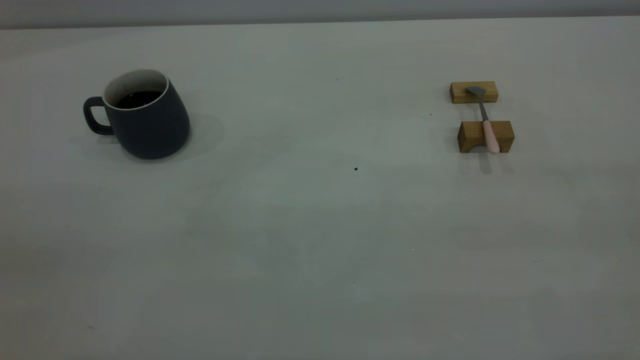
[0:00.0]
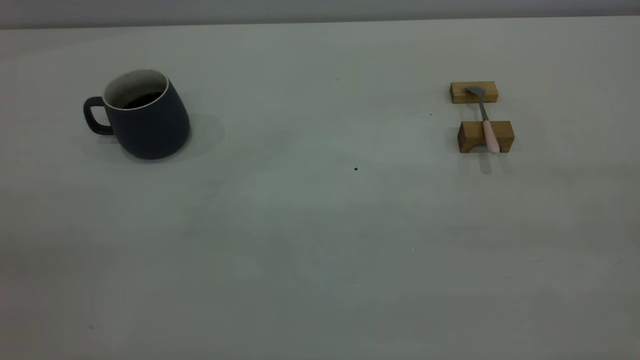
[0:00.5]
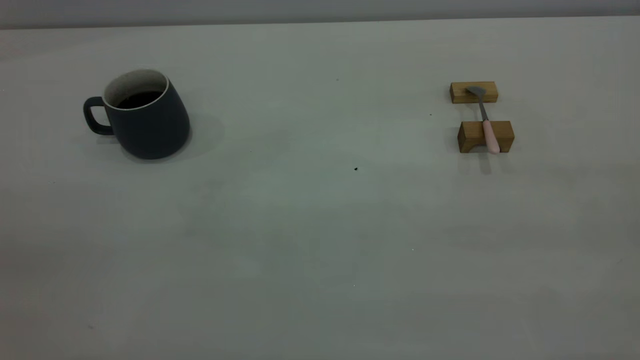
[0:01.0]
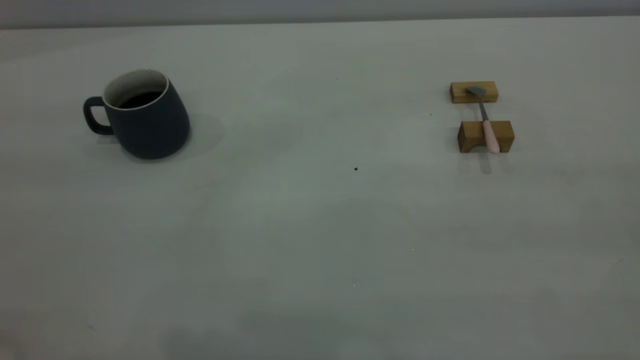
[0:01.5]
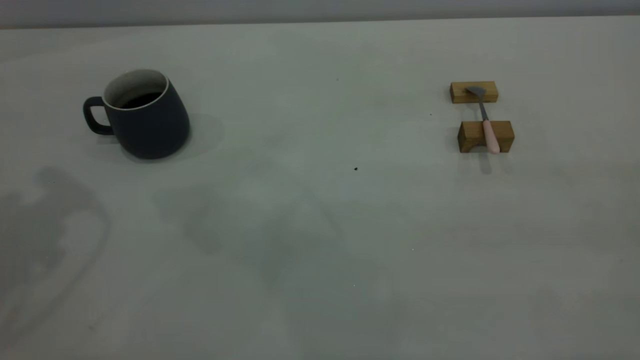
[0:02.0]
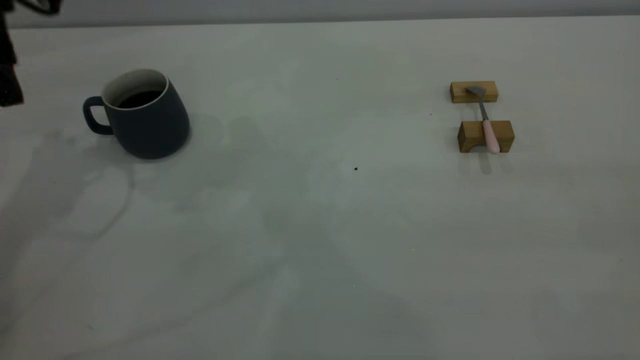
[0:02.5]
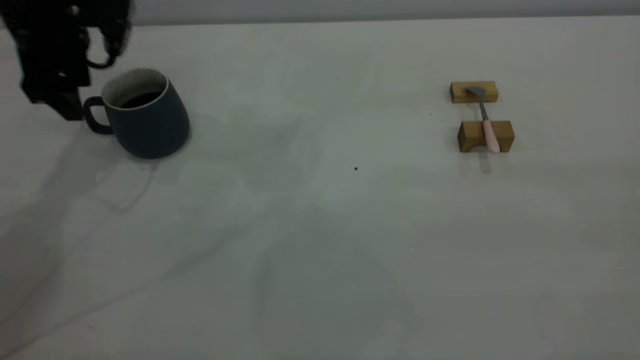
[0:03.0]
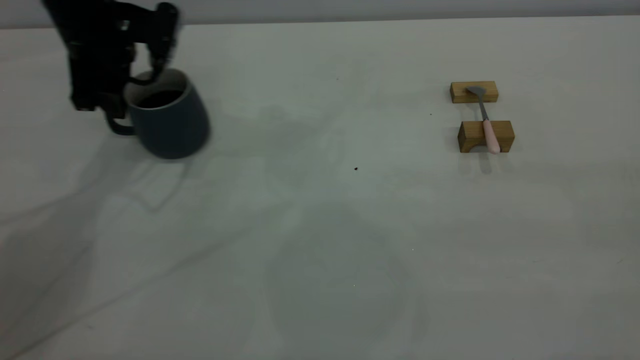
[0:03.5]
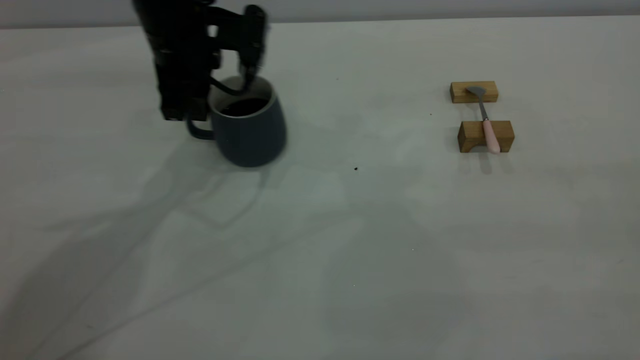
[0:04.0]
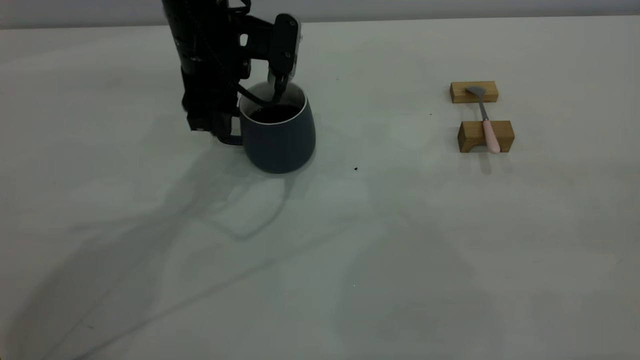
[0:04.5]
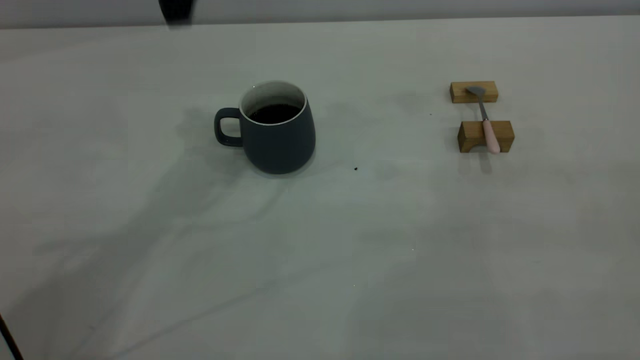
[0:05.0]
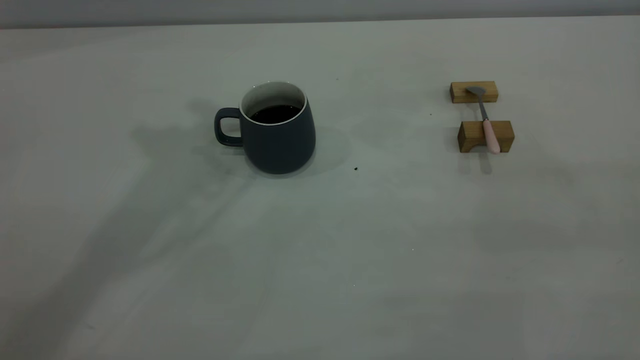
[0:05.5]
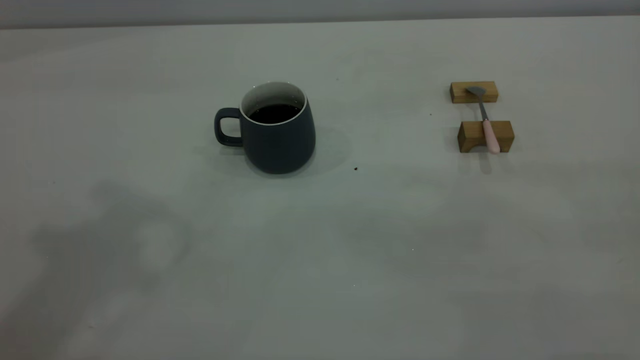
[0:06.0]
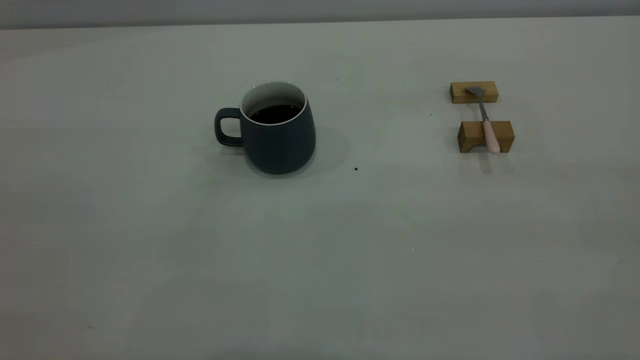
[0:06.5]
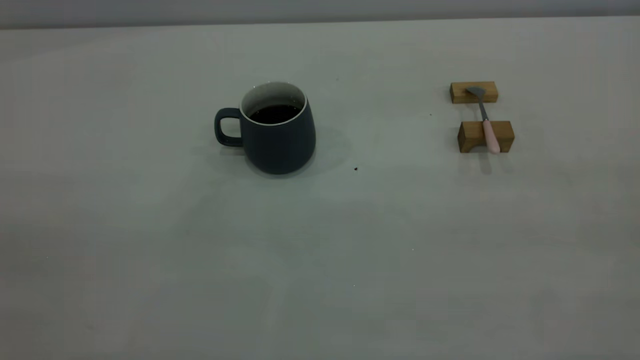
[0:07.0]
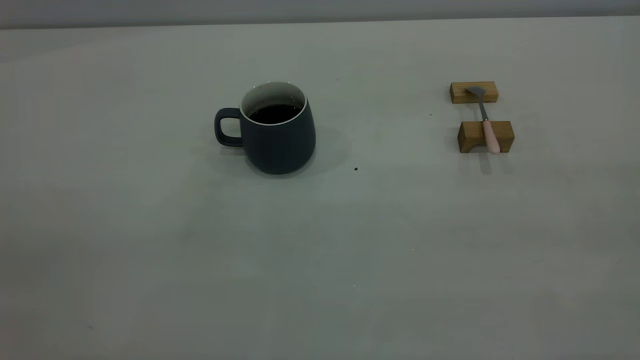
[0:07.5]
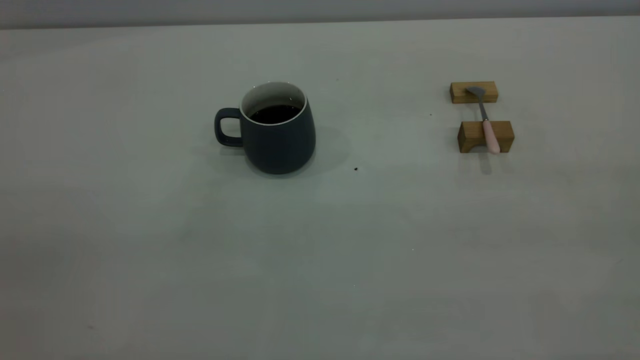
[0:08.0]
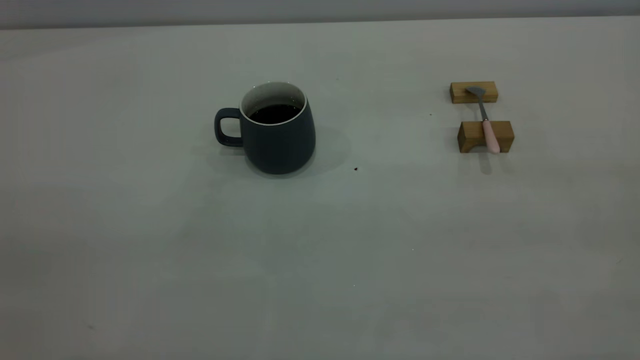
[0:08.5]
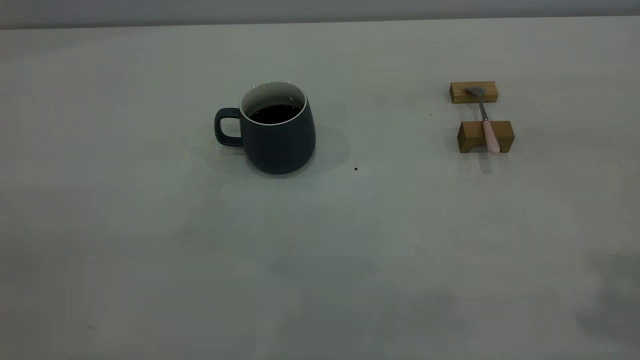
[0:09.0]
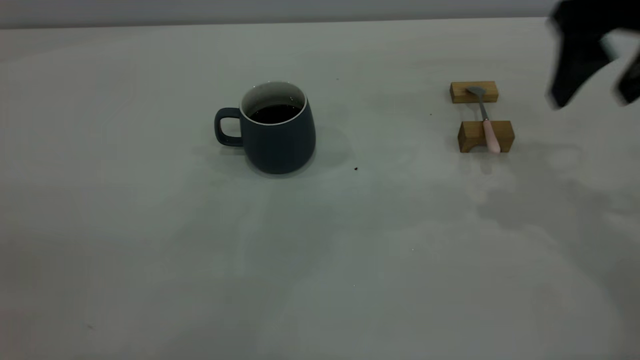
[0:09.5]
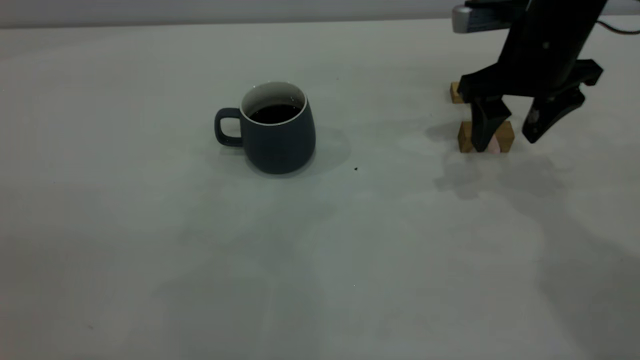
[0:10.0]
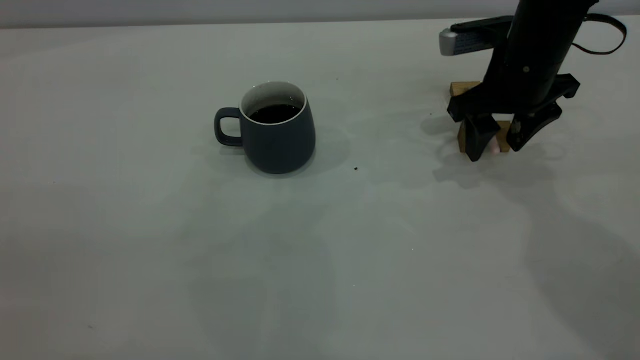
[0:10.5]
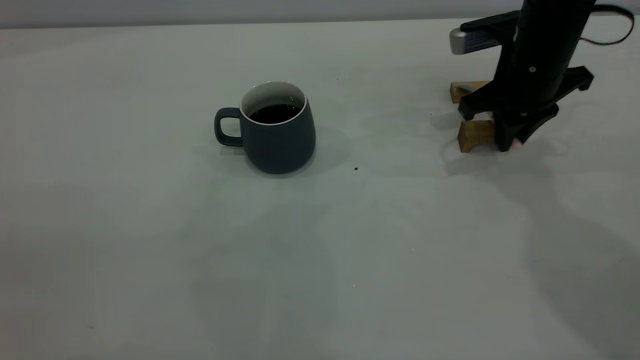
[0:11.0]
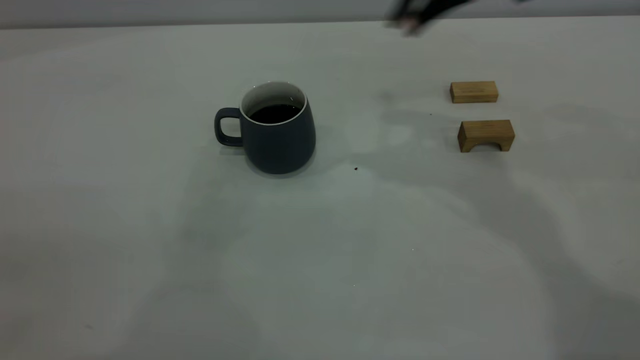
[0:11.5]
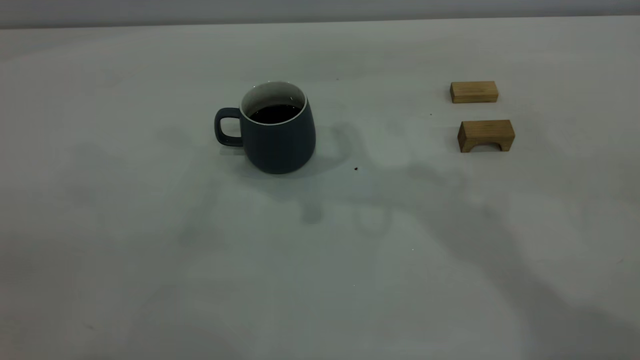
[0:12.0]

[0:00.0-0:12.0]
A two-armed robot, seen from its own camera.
Step, 0.0 to 4.5 s: Move the cup with coffee to the center of view.
Step, 5.0 to 11.0 s: Pick up the spoon.
2.0 to 4.0 s: The left gripper goes about 30 cm downward, to the right and forward, and closes.
4.0 to 6.0 s: The left gripper travels upward and backward by some 35 cm, and opens, then closes once more.
8.0 to 10.0 s: The right gripper goes approximately 40 cm forward and downward, and opens its fingers.
10.0 to 12.0 s: The right gripper heads to the left and upward, covering roughly 25 cm, and closes up.

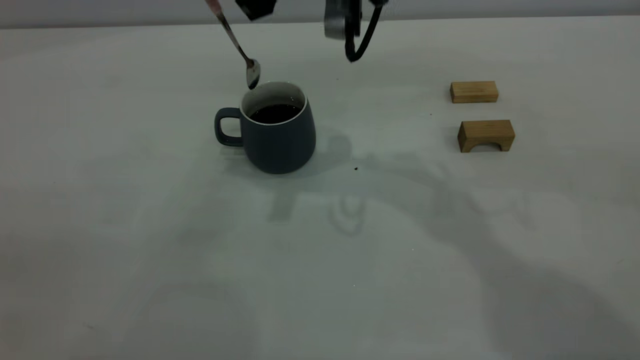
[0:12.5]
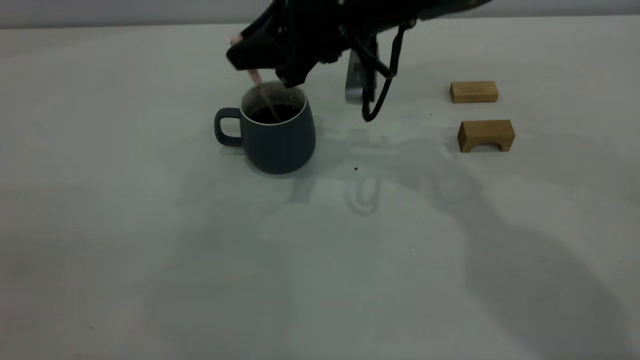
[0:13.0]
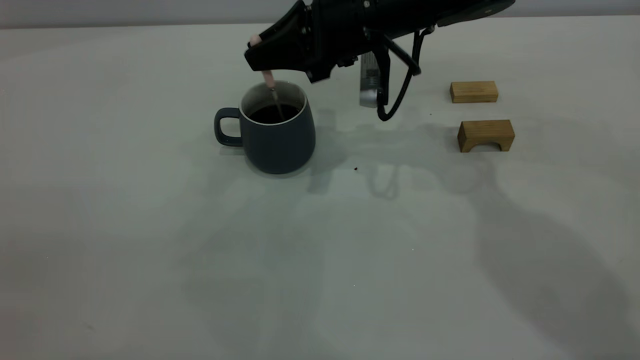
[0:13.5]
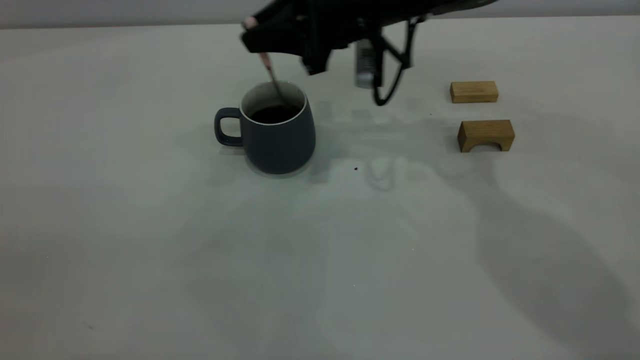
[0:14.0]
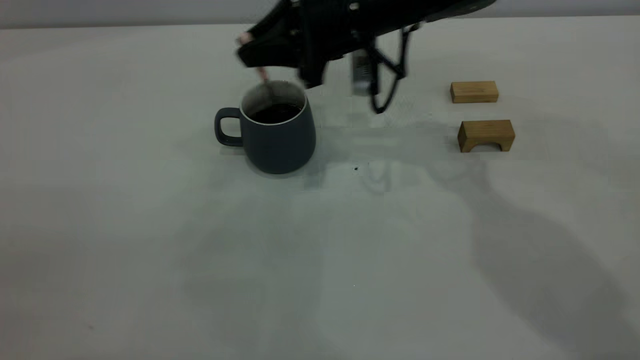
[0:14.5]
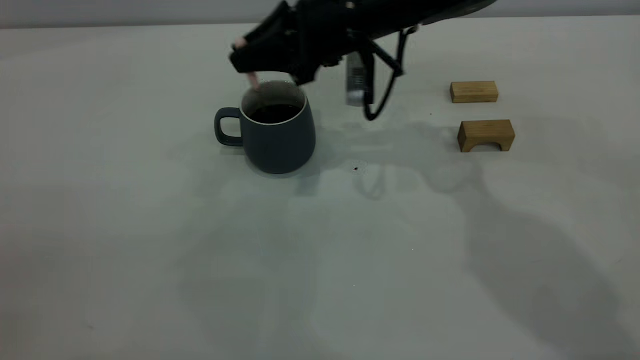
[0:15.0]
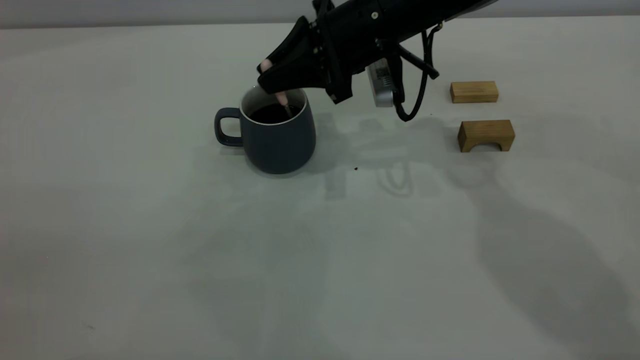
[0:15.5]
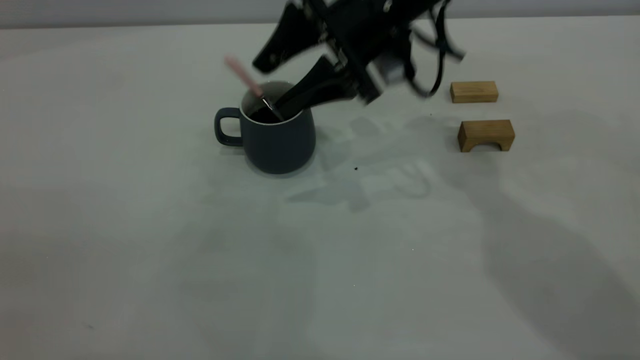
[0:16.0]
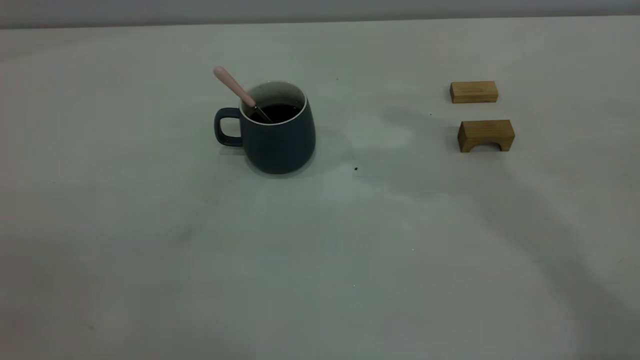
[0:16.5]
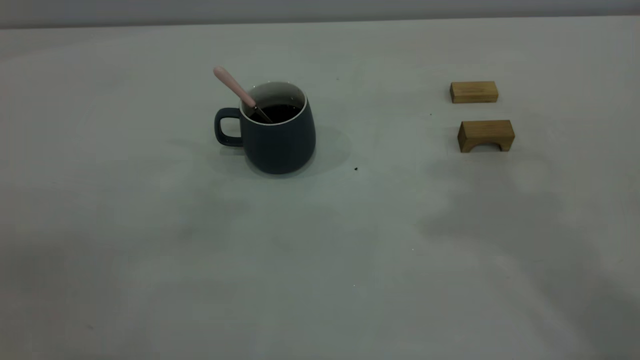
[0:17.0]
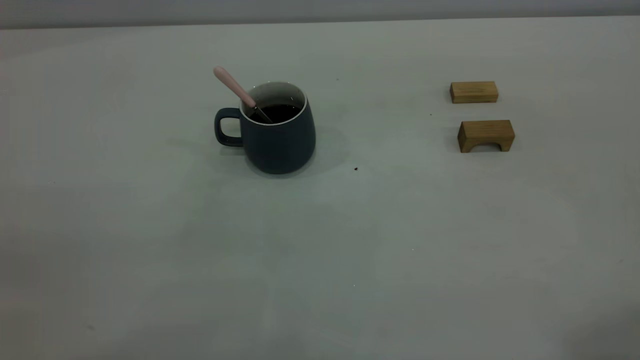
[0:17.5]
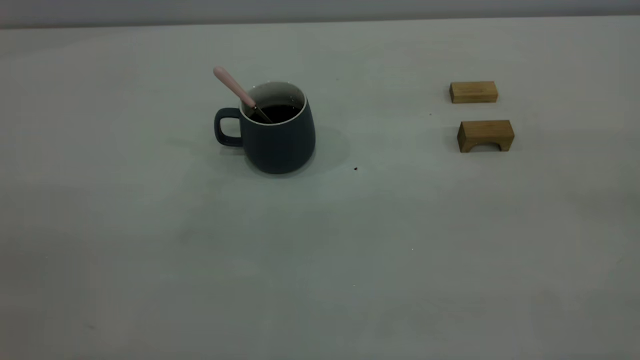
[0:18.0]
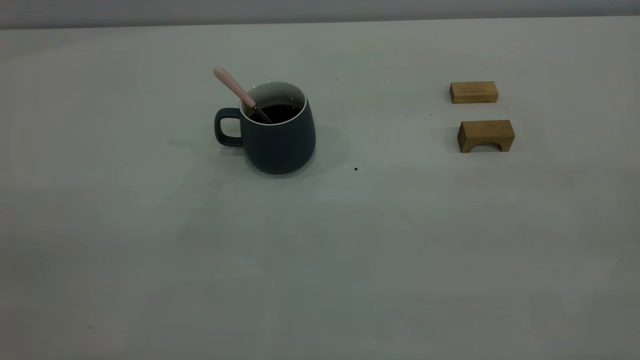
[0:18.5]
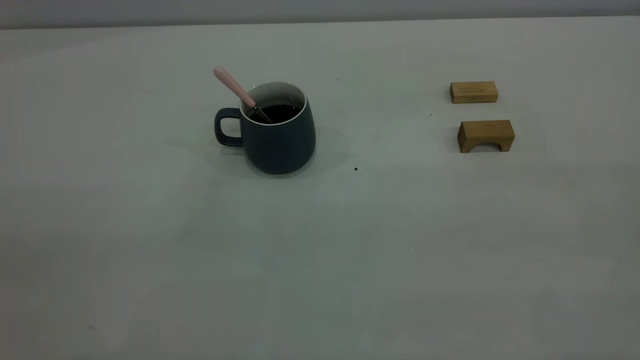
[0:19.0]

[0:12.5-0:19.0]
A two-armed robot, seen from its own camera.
Step, 12.5 to 16.0 s: Stir the coffee in the cup.
12.5 to 14.5 s: The right gripper goes approximately 10 cm downward and forward.
14.5 to 17.0 s: The right gripper heads upward, backward and to the right, covering about 40 cm, and opens, then closes once more.

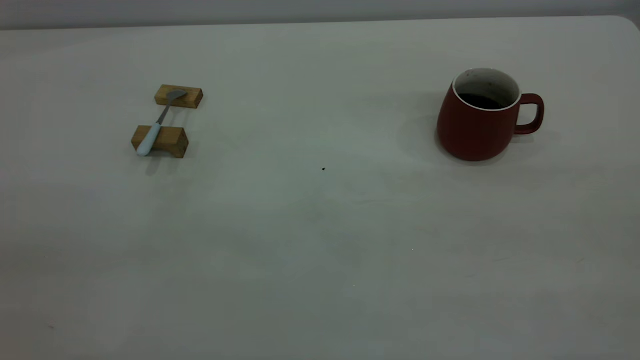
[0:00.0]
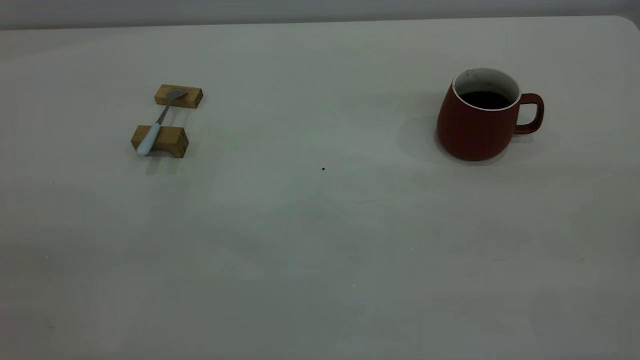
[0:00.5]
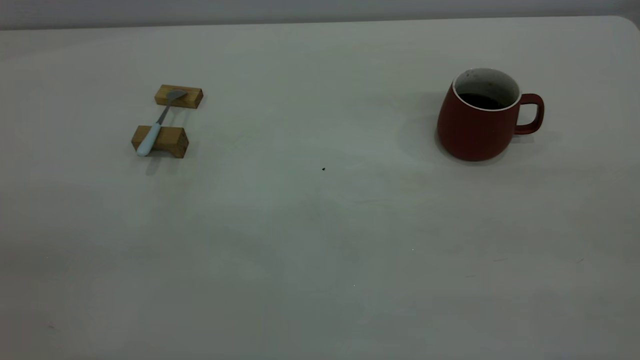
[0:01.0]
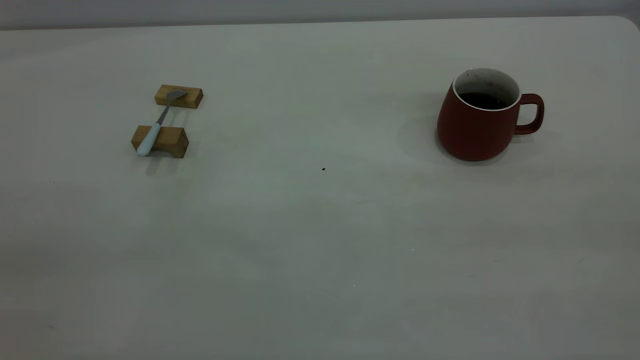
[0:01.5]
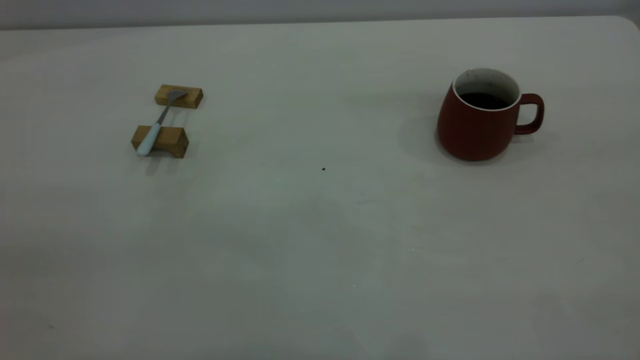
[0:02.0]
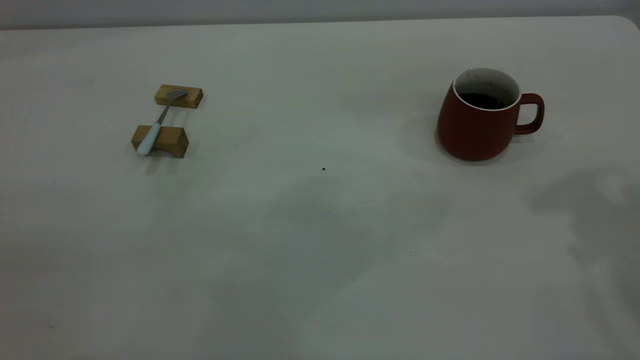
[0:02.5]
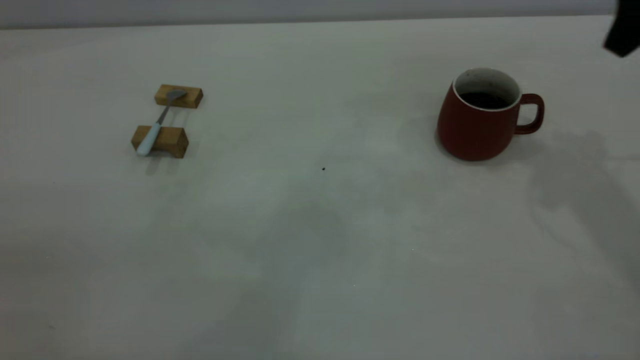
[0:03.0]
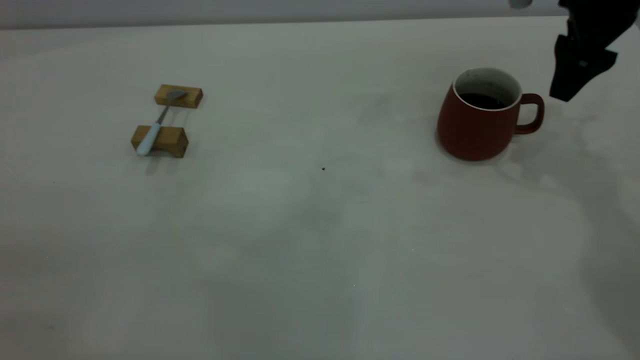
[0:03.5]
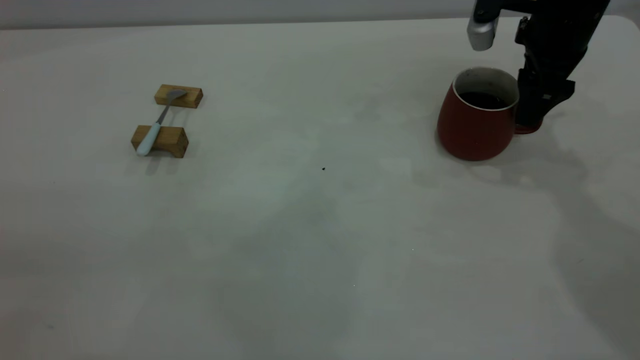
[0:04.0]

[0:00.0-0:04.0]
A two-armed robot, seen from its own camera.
2.0 to 4.0 s: The right gripper moves forward and downward, roughly 40 cm.
